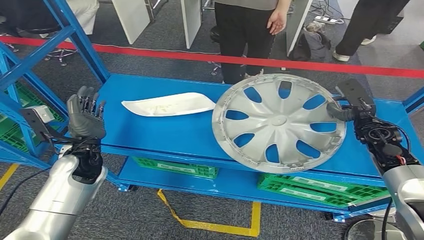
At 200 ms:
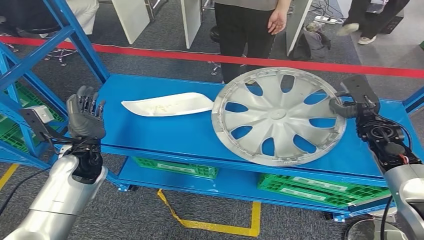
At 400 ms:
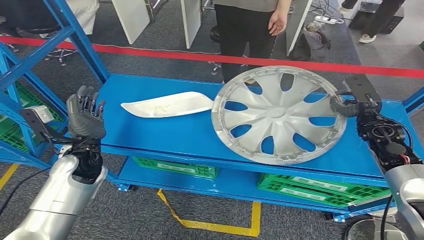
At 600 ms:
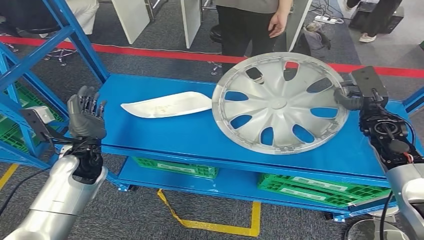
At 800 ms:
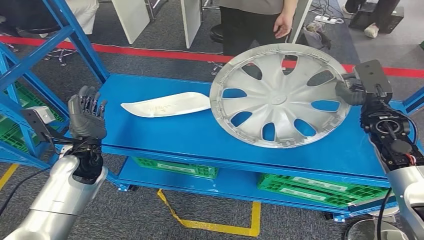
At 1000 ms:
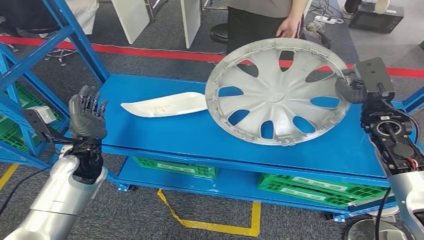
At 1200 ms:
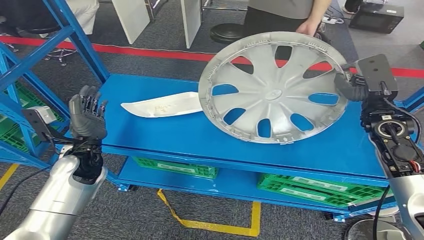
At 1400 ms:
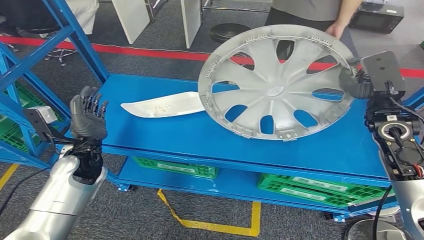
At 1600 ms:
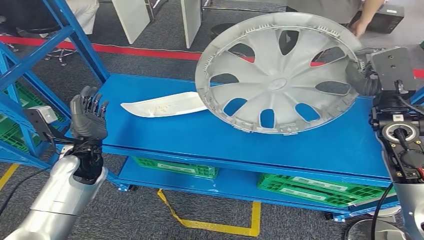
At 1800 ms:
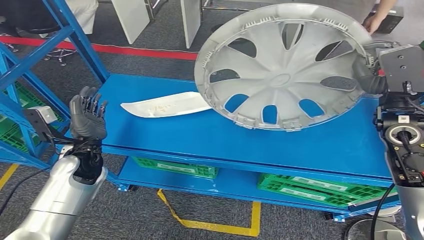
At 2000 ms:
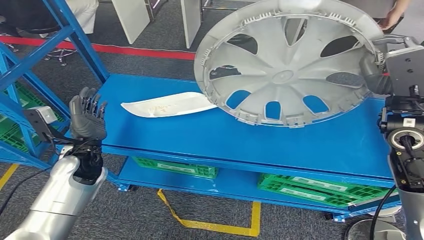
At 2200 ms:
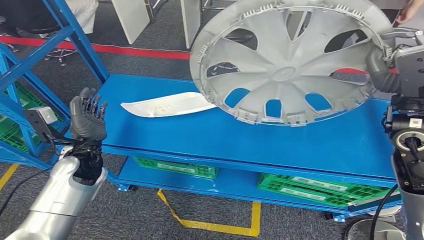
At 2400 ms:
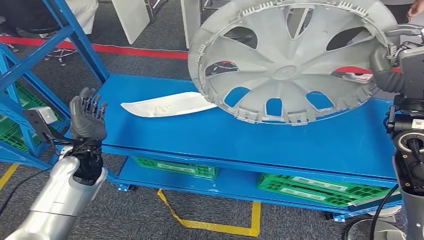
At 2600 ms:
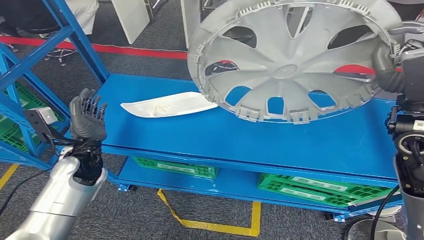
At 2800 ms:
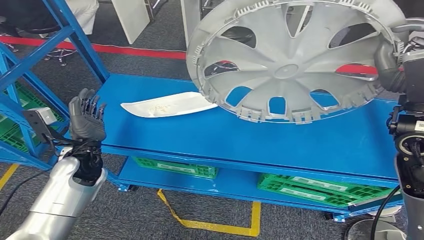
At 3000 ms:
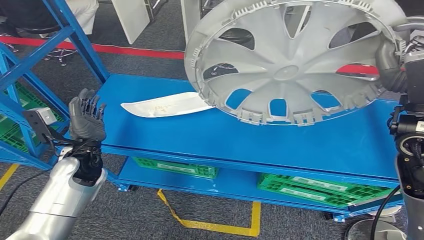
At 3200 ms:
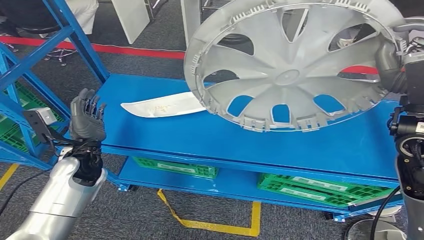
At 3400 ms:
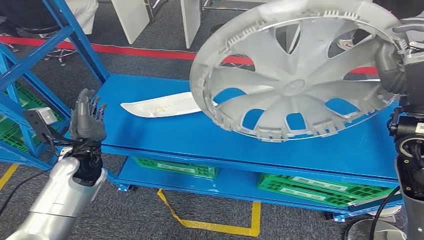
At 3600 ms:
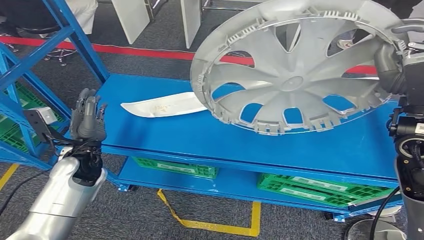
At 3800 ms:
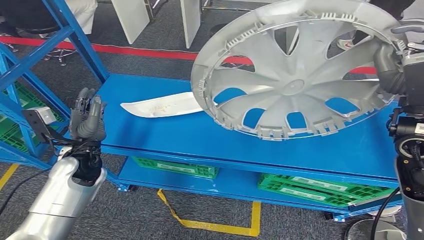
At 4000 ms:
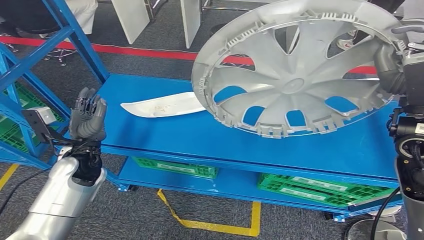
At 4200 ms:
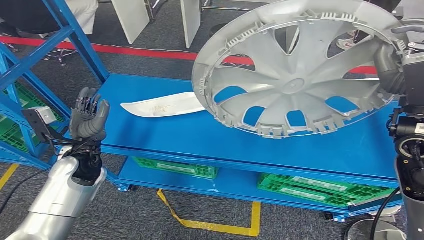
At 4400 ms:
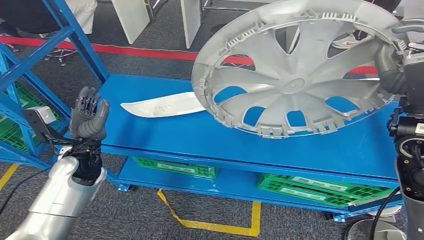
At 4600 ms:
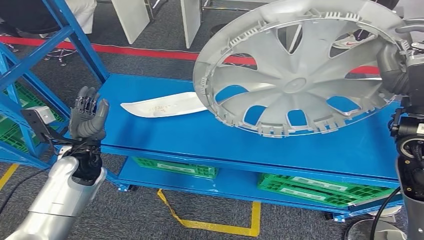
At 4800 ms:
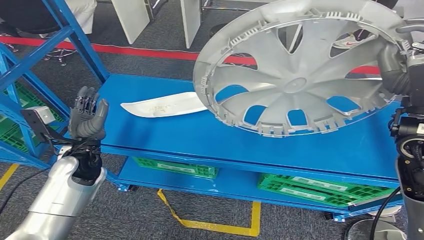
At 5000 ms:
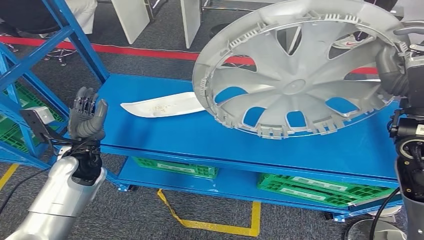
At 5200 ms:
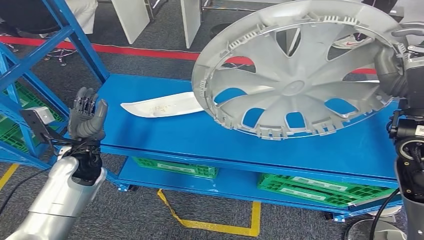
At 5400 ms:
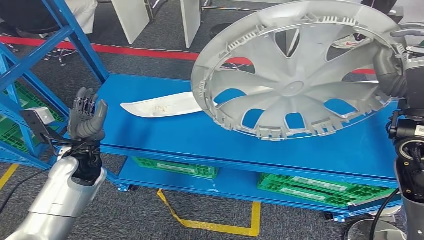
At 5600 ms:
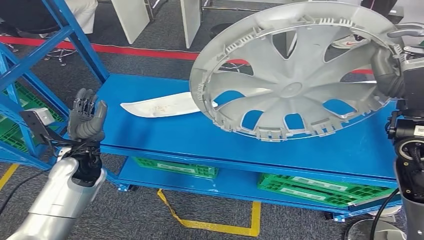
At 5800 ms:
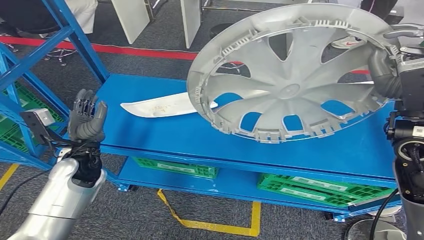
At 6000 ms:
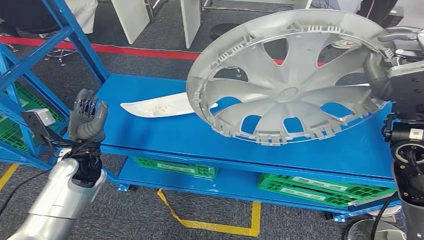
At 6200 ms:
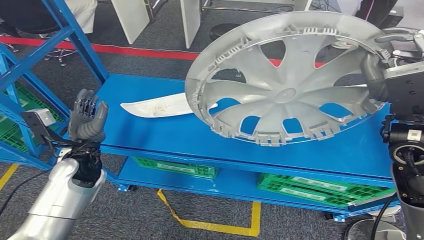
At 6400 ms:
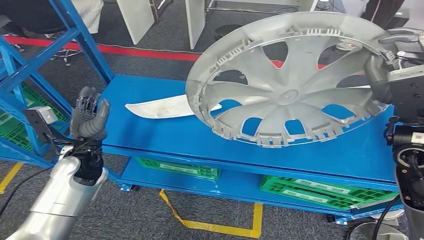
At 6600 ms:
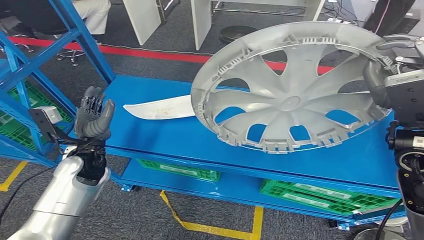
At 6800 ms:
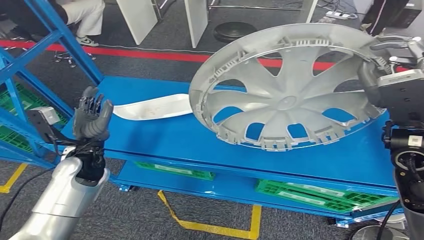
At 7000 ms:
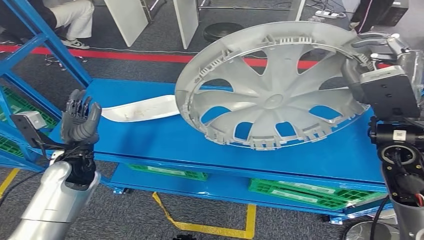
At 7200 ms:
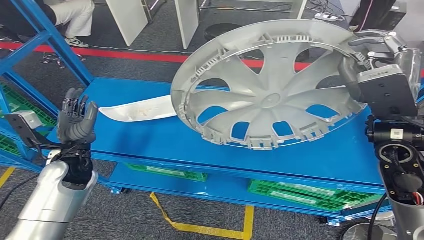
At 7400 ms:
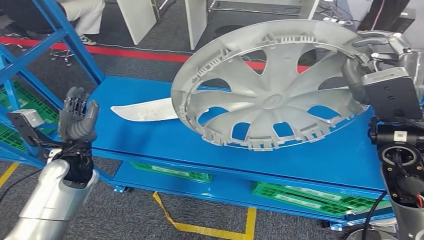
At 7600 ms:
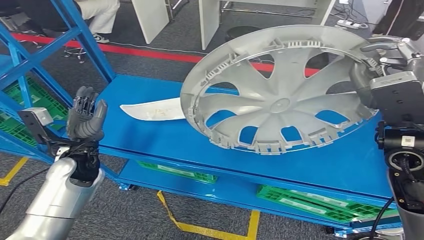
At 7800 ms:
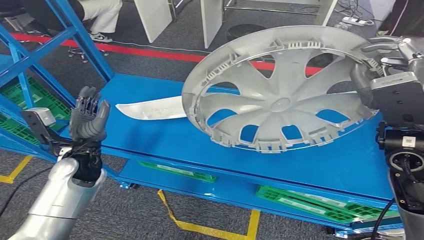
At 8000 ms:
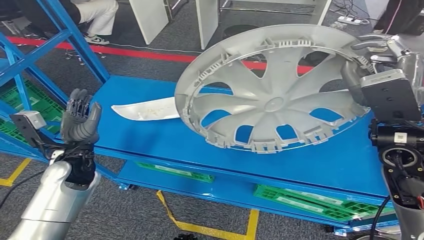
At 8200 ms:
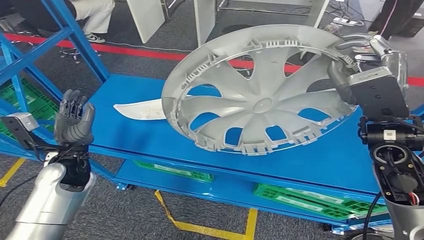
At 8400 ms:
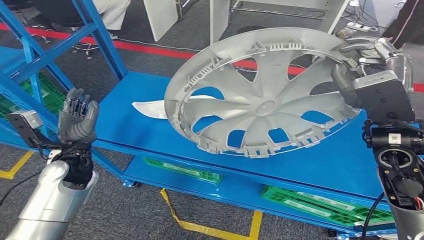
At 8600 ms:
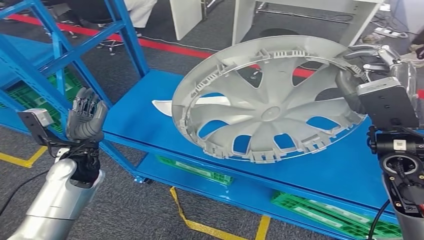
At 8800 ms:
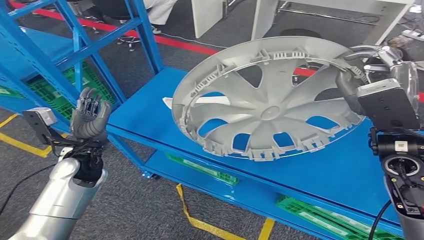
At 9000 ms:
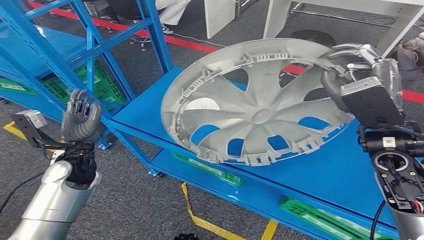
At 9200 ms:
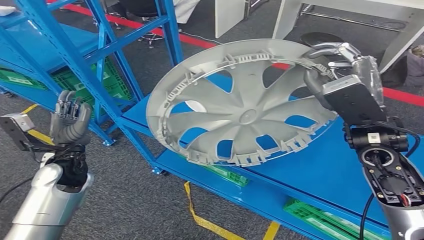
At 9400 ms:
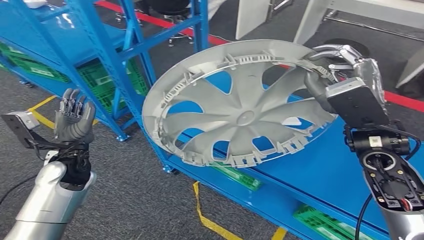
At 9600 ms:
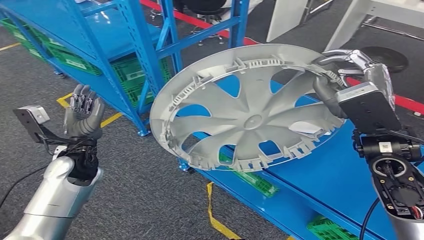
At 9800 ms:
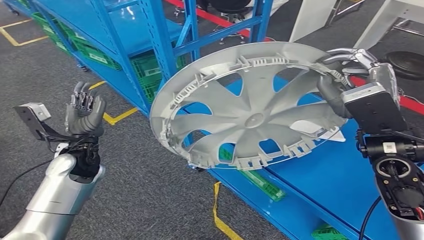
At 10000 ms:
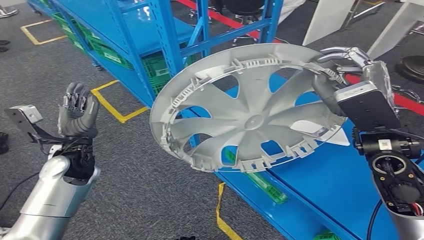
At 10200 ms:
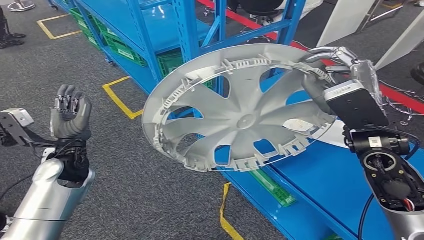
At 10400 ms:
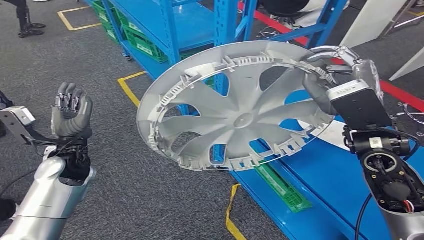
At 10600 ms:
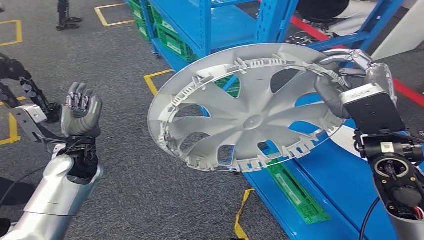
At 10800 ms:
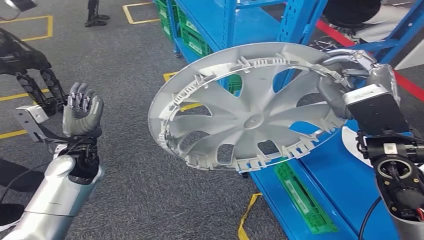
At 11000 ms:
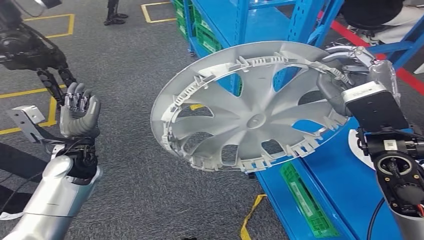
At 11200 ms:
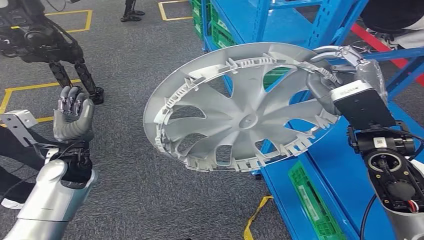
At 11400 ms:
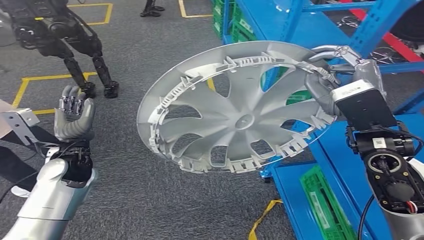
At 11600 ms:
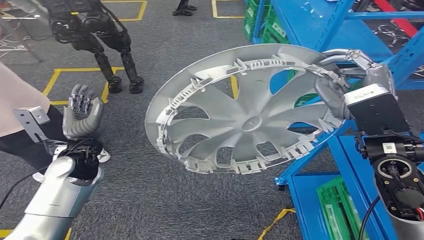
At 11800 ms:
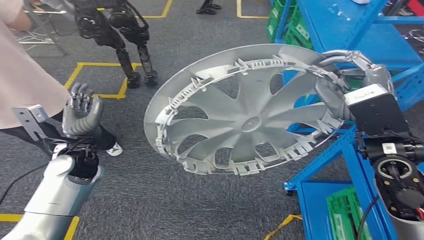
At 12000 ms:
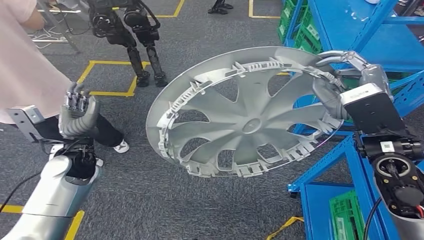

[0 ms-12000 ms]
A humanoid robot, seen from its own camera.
3000 ms to 4400 ms: Both hands stay put.
4400 ms to 6000 ms: Both hands stay put.

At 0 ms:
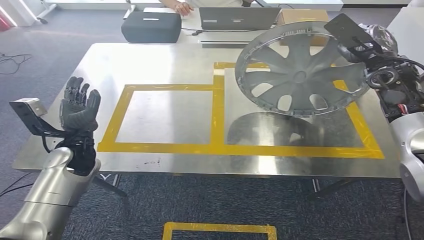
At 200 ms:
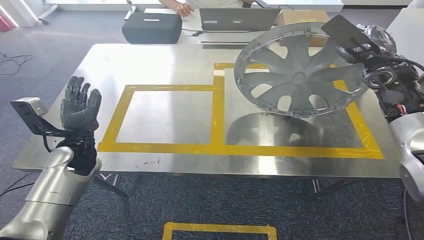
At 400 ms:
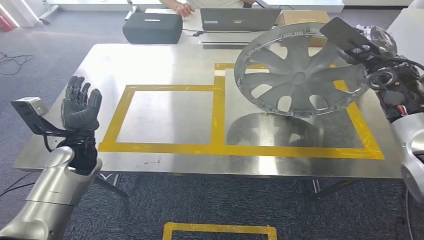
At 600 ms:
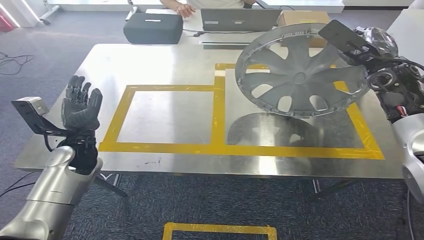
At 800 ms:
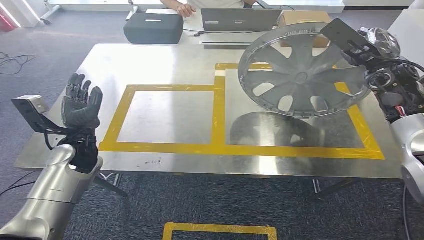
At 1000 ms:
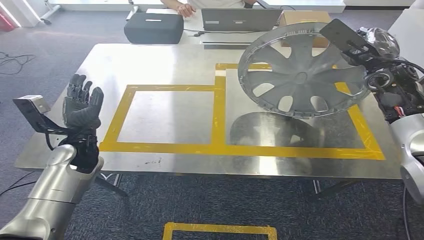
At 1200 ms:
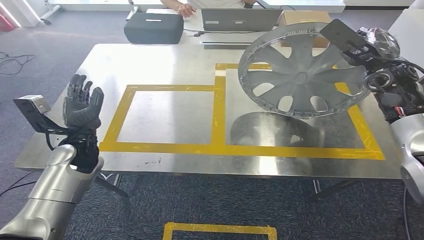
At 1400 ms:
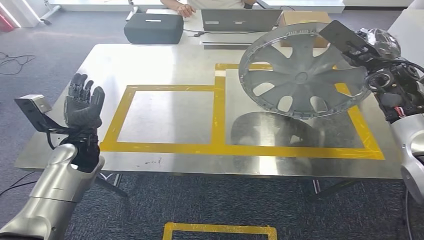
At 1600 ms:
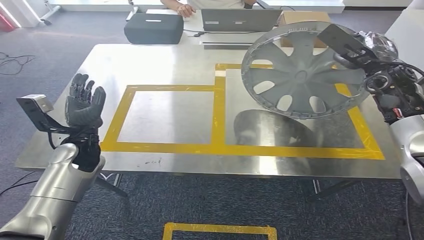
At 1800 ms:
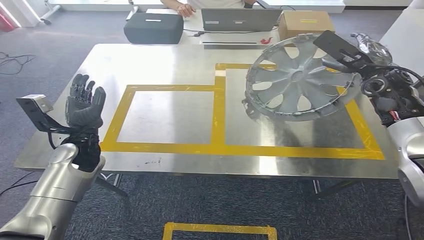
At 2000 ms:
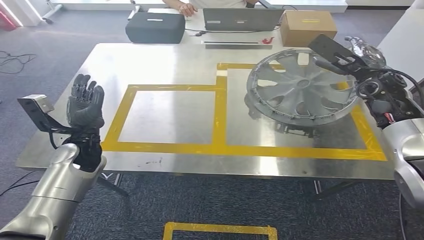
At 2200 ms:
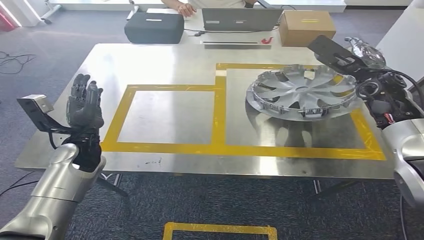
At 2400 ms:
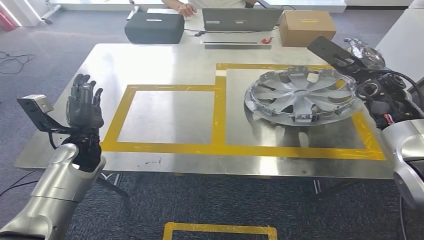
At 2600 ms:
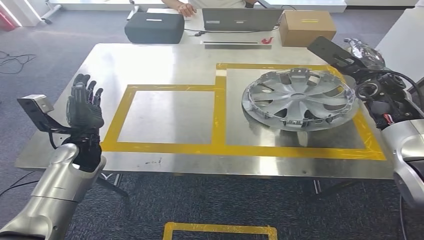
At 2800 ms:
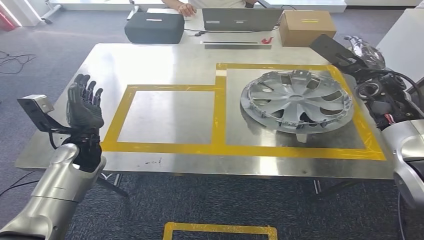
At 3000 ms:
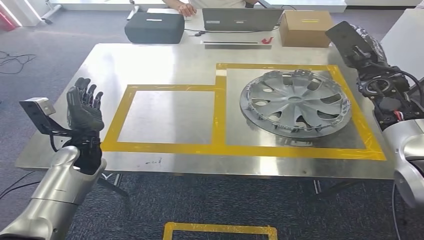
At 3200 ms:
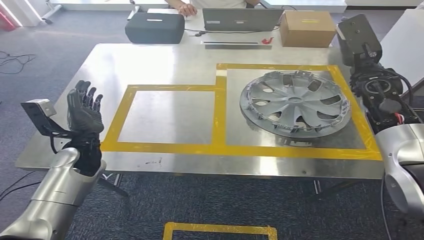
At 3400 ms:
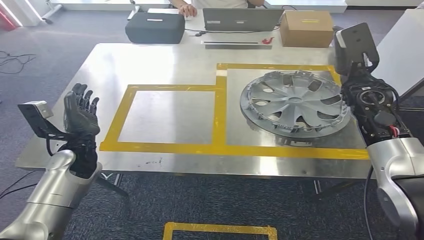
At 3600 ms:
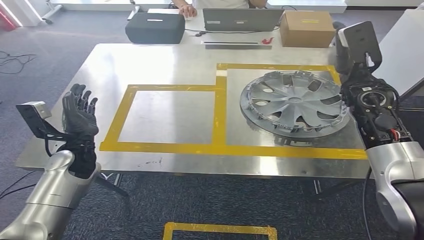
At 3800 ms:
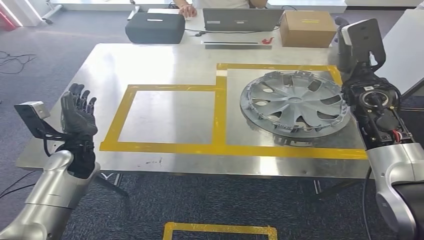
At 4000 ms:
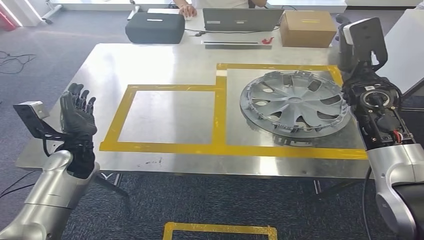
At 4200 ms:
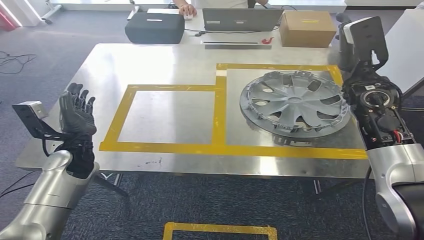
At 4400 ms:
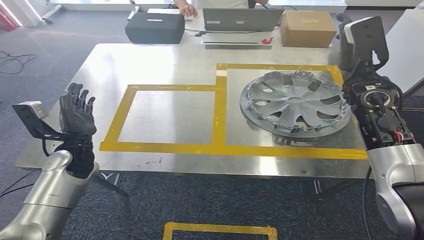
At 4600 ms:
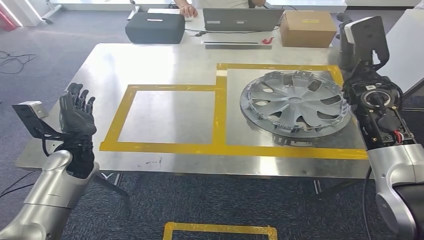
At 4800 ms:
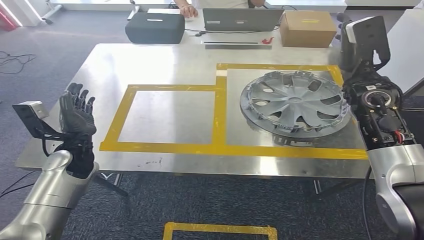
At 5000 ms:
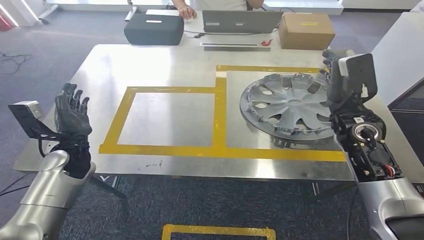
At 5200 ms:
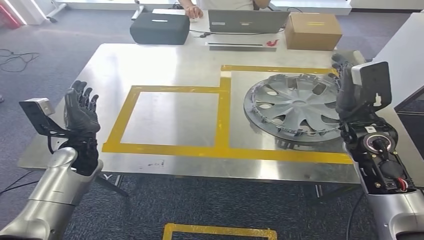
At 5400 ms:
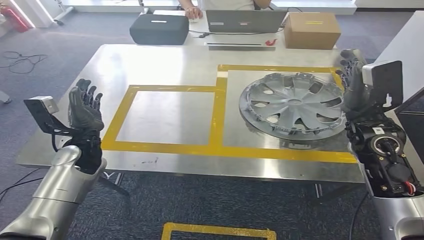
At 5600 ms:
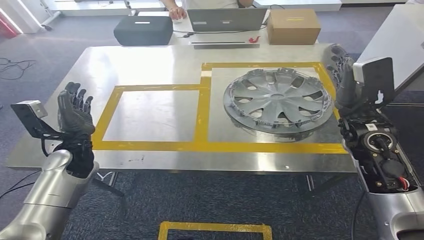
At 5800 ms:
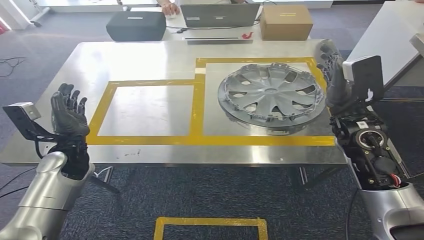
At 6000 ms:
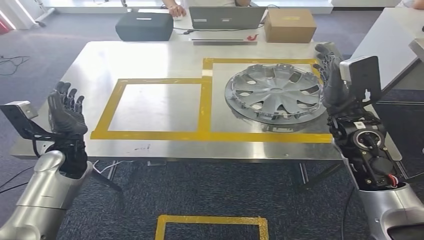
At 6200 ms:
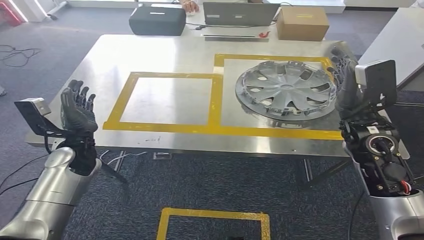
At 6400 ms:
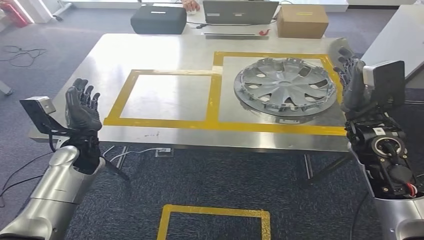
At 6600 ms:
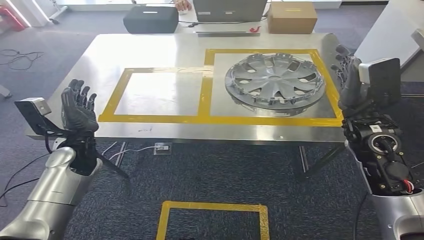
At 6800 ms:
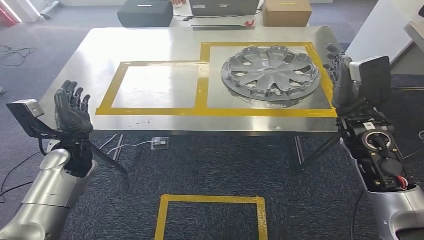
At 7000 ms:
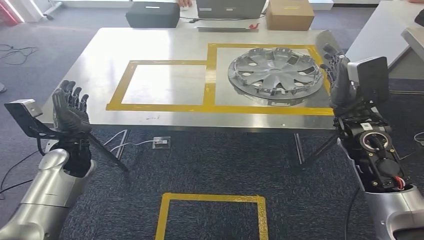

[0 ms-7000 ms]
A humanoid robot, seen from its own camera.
Step, 200 ms to 5800 ms: Insert the small component into the corresponding slot on the workbench.
0 ms to 2800 ms: The hands stay close to where they were, moving slightly.
2800 ms to 4200 ms: The right hand shifts by about 5 cm.
